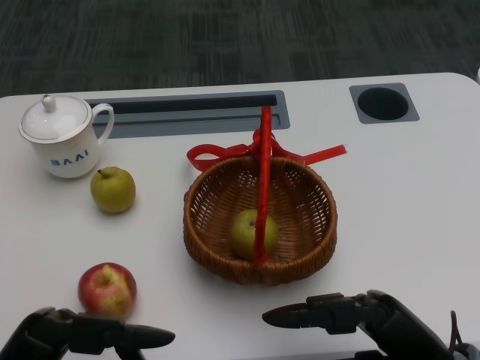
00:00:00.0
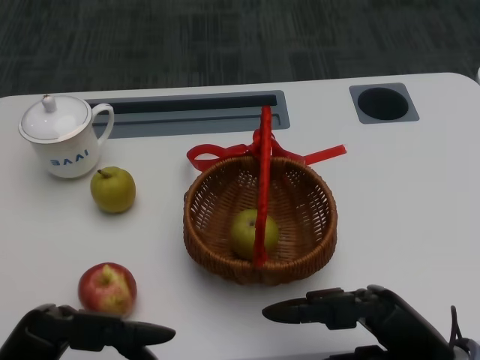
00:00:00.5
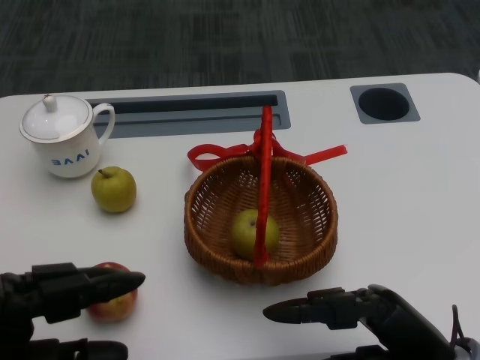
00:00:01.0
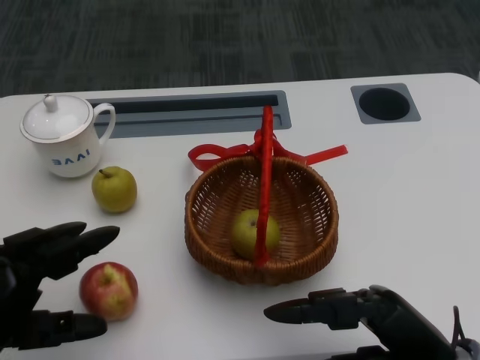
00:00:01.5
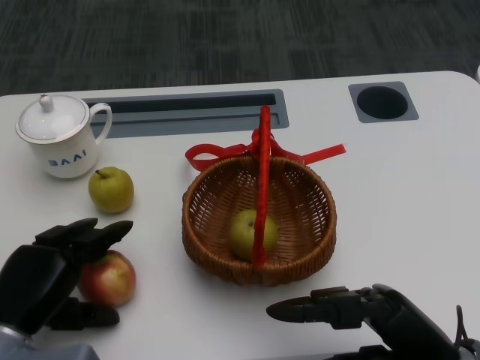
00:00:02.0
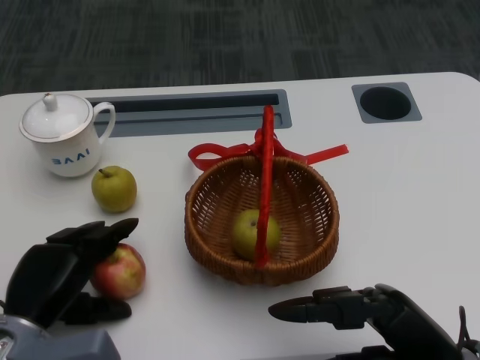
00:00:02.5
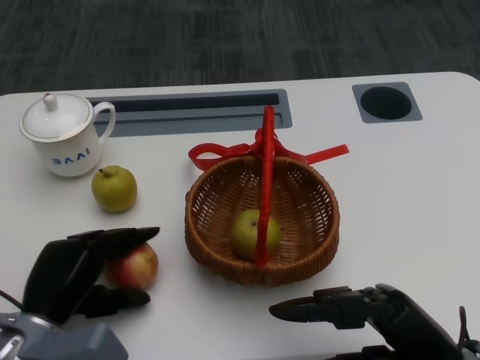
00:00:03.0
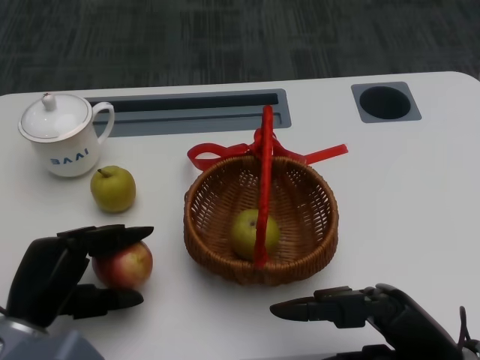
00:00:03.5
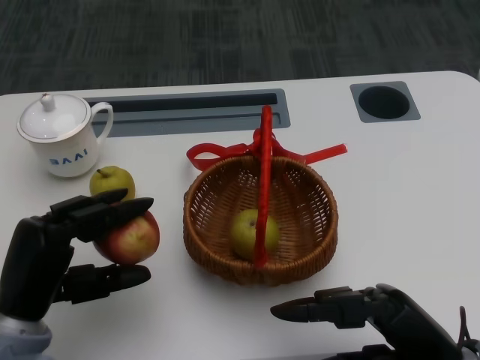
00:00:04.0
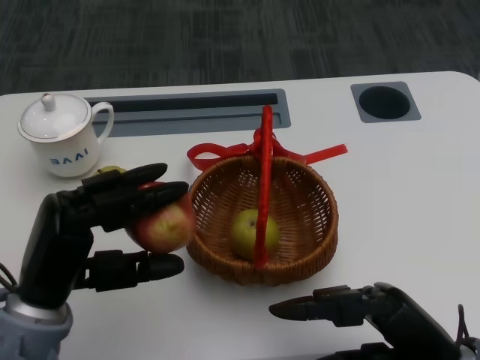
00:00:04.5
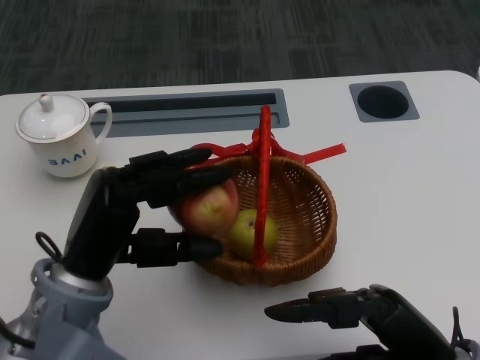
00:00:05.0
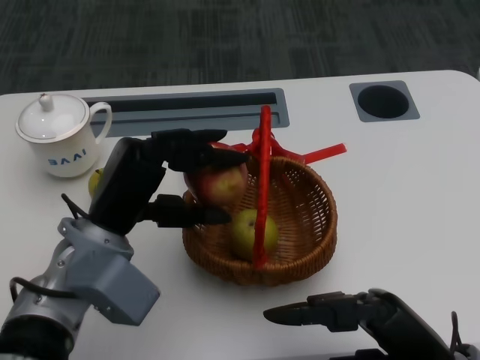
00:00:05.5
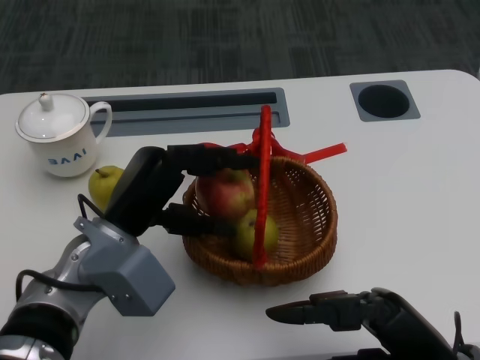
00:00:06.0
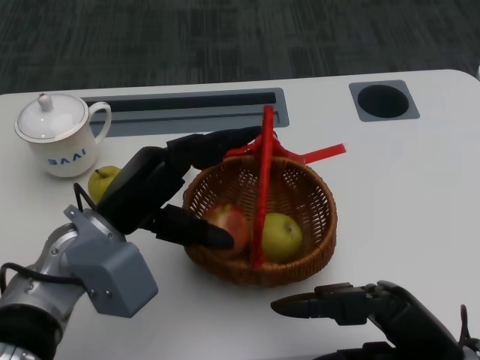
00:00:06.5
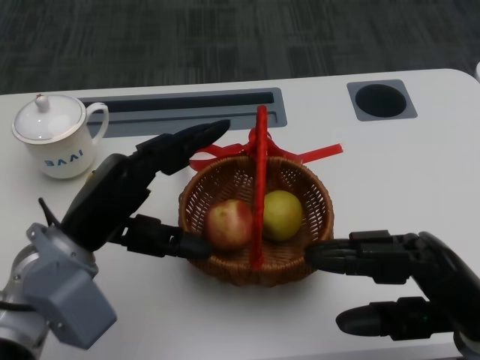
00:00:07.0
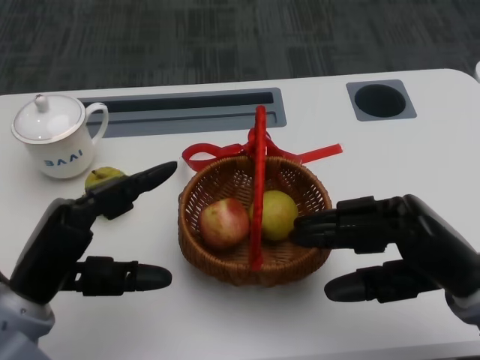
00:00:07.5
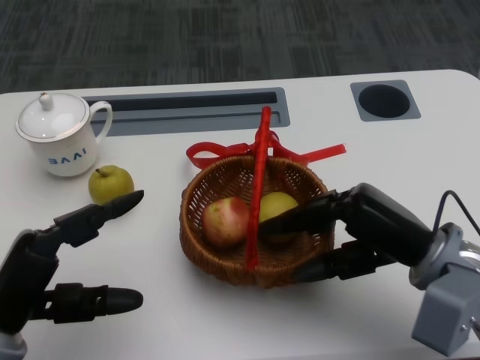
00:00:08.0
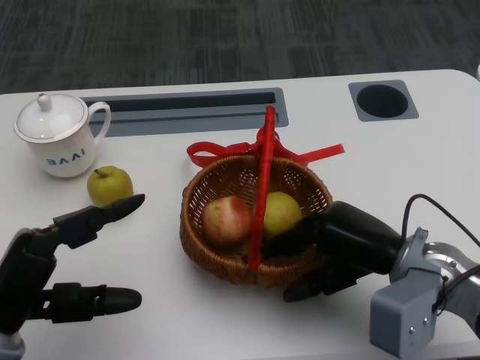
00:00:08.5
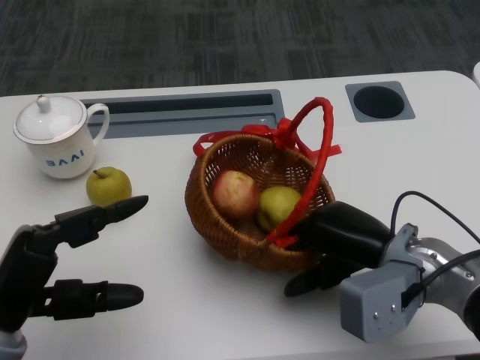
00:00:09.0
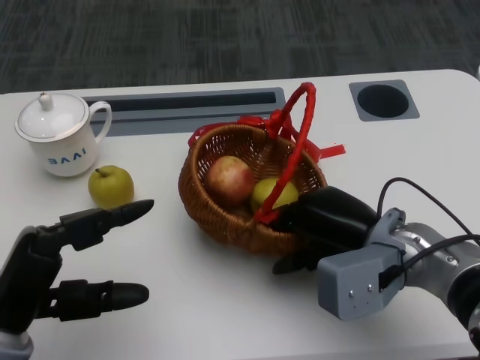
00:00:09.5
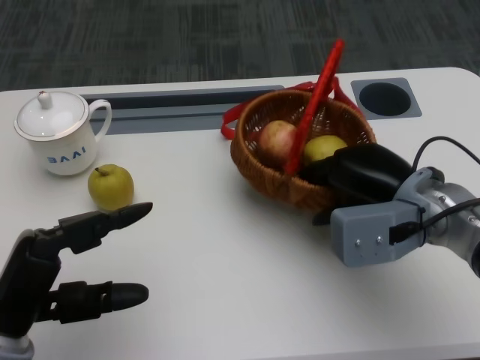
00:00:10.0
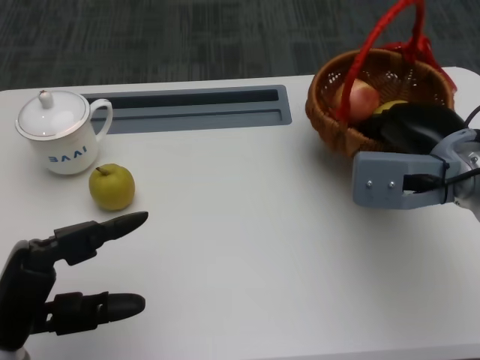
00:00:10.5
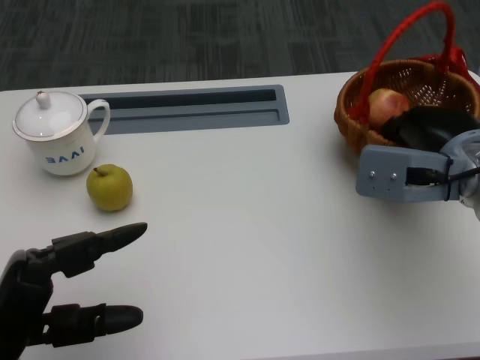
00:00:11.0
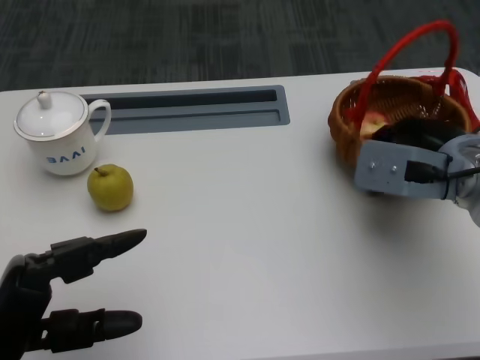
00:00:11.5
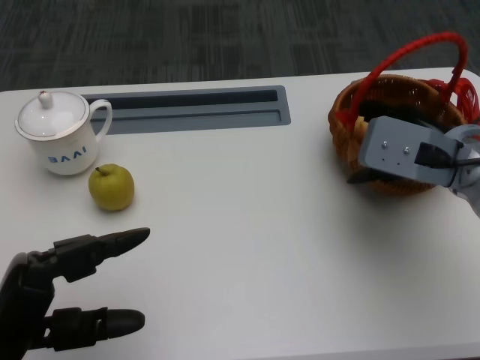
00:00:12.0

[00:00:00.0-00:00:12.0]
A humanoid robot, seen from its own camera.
Step, 00:00:01.0 to 00:00:01.5: Grasp the apple with the left gripper.
Step, 00:00:02.5 to 00:00:05.0: Place the apple into the basket with the left gripper.
Step, 00:00:05.5 to 00:00:07.5: Grasp the basket with the right gripper.
Step, 00:00:08.0 to 00:00:09.5: Move the basket to the front of the table with the right gripper.
00:00:04.0 to 00:00:06.0: The left hand is displaced to the right and forward by about 10 cm.
00:00:06.0 to 00:00:08.0: The left hand shifts about 15 cm to the left and backward, while the right hand is displaced forward by some 10 cm.
00:00:08.0 to 00:00:10.0: The right hand goes about 5 cm forward.
00:00:10.0 to 00:00:12.0: The right hand shifts by approximately 5 cm.

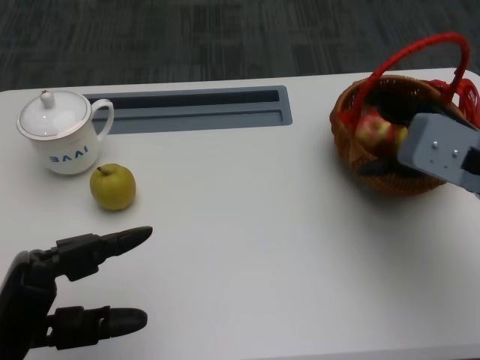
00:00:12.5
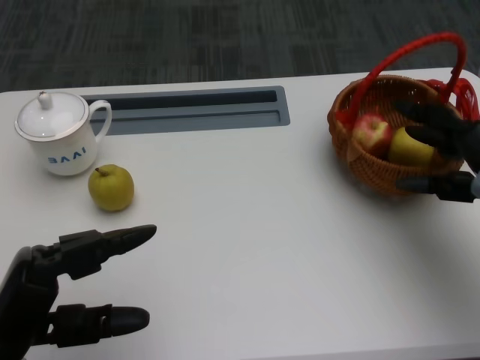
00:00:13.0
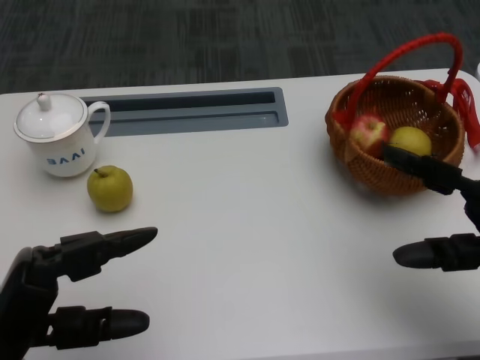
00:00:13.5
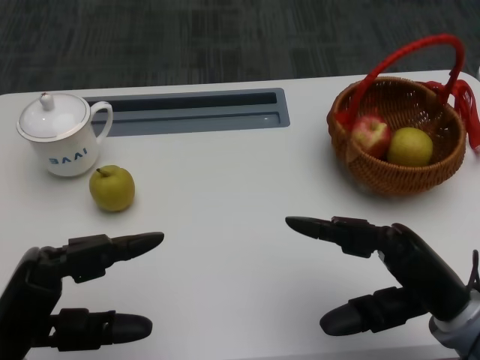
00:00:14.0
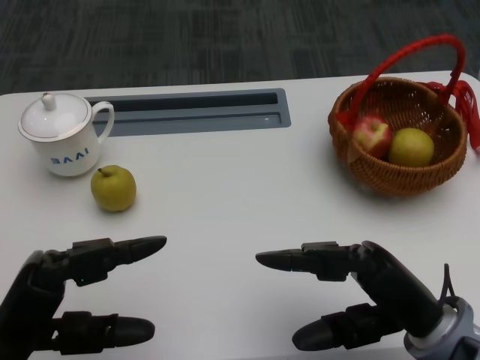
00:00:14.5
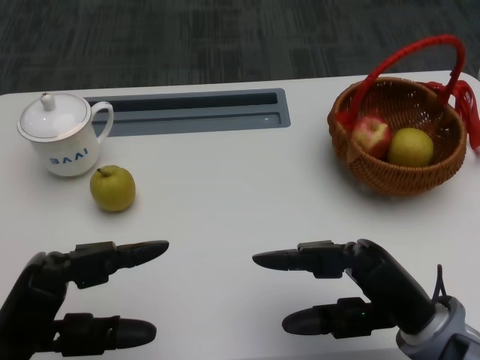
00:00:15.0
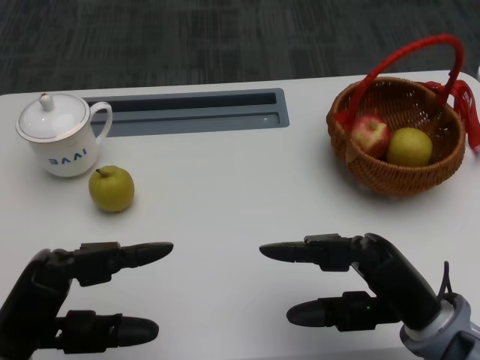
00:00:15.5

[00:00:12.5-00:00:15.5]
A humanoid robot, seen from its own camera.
00:00:12.5 to 00:00:14.0: The right hand is displaced backward and downward by approximately 15 cm.
00:00:14.0 to 00:00:15.5: The hands make only small movements.

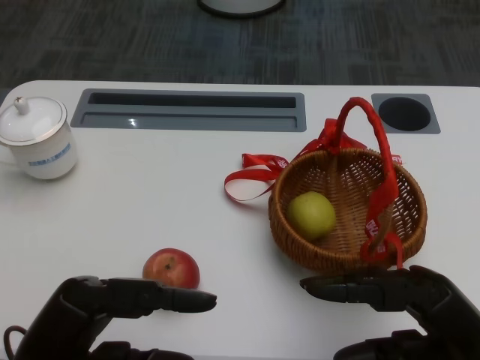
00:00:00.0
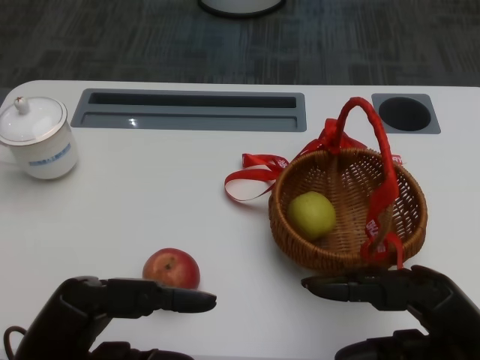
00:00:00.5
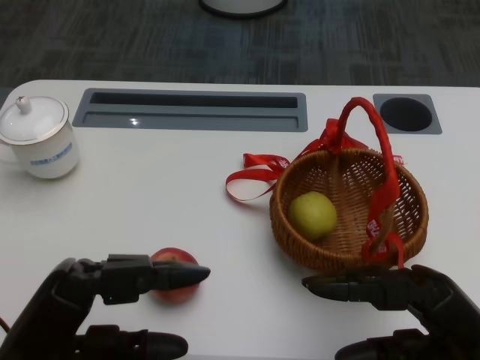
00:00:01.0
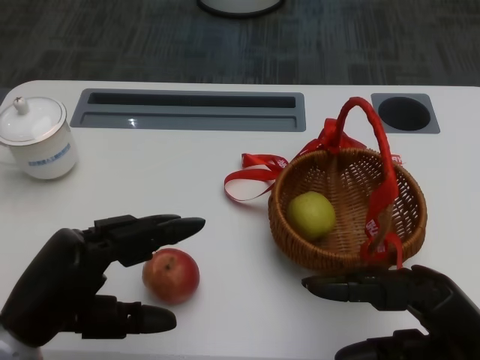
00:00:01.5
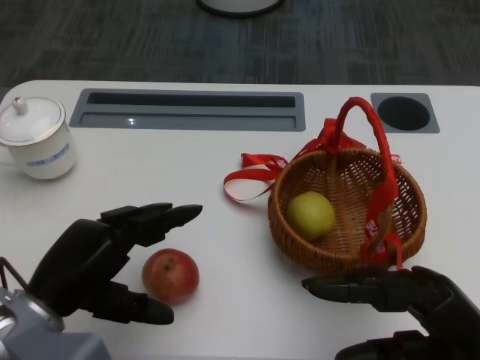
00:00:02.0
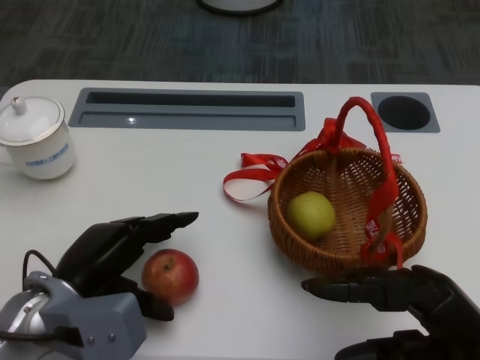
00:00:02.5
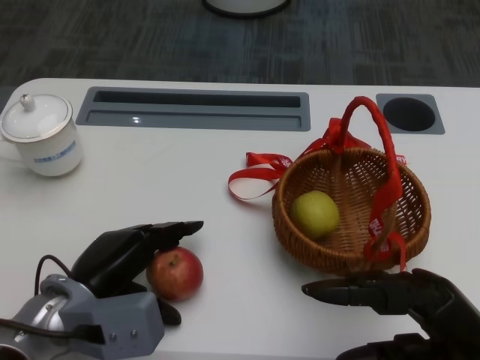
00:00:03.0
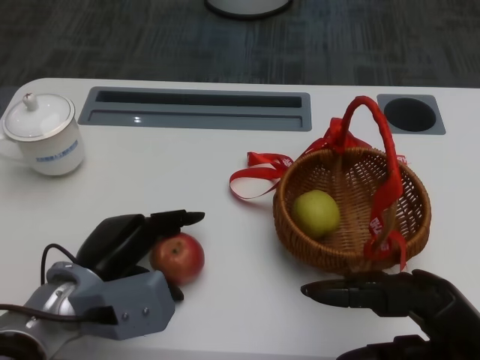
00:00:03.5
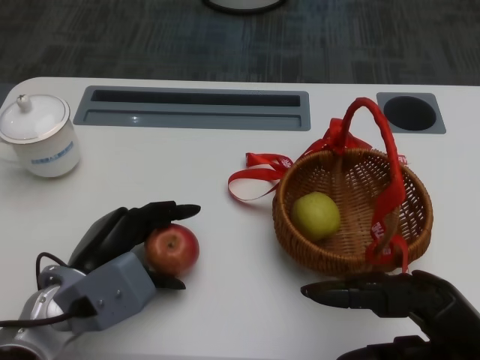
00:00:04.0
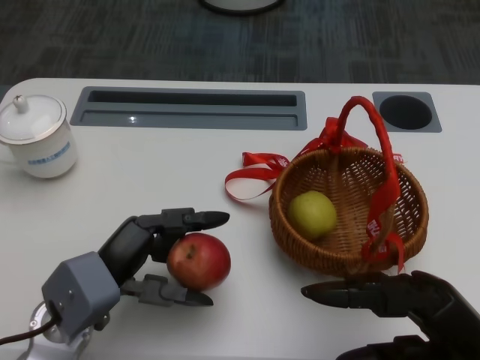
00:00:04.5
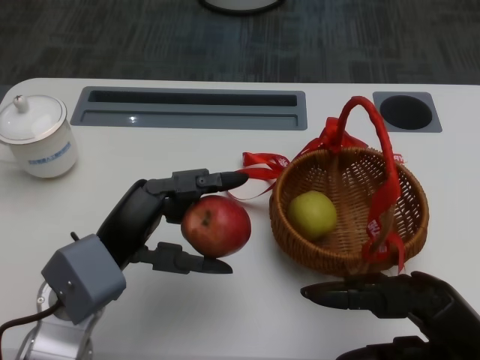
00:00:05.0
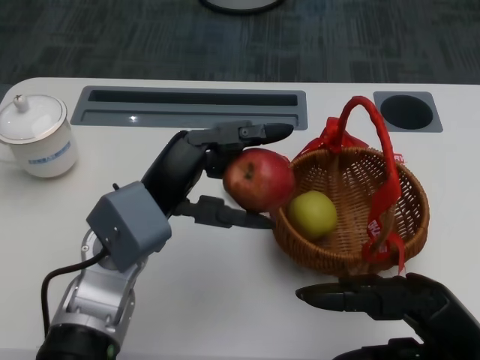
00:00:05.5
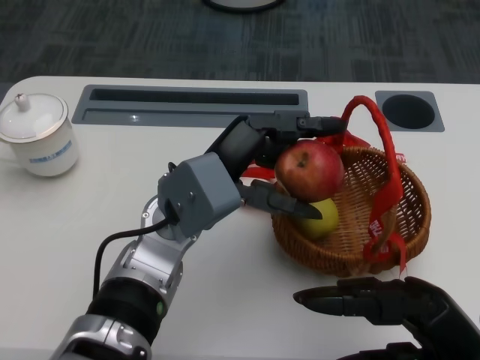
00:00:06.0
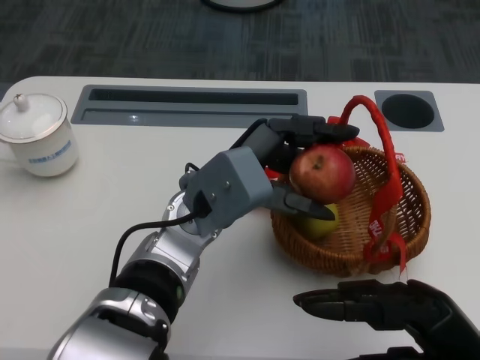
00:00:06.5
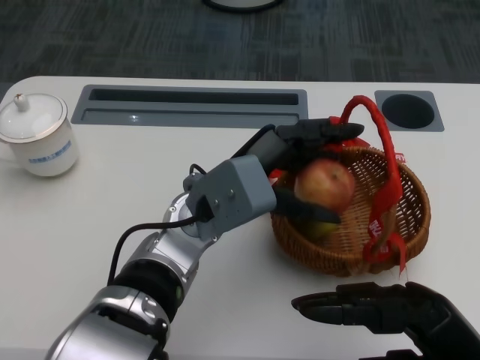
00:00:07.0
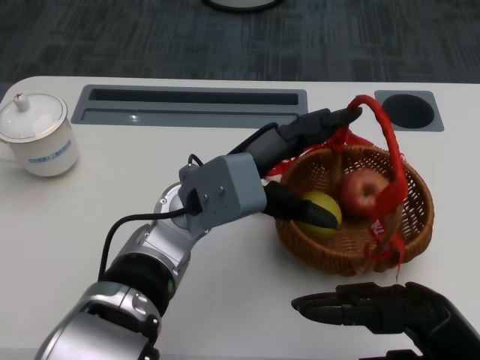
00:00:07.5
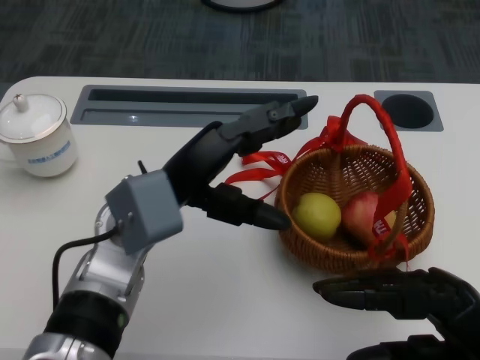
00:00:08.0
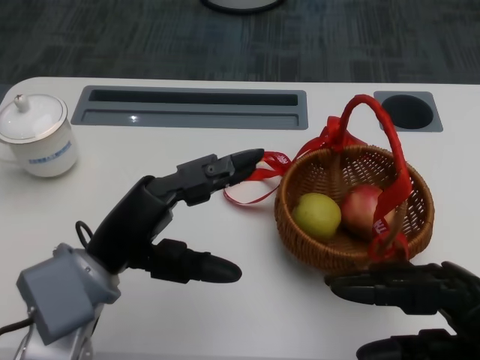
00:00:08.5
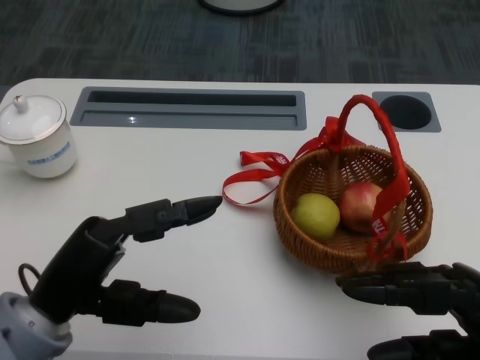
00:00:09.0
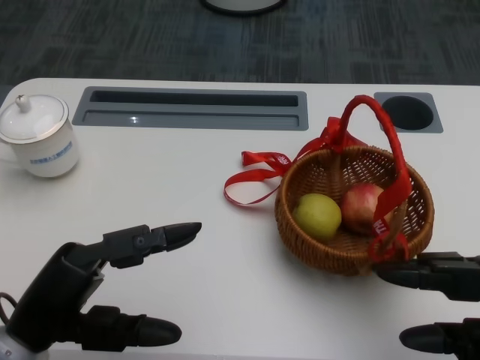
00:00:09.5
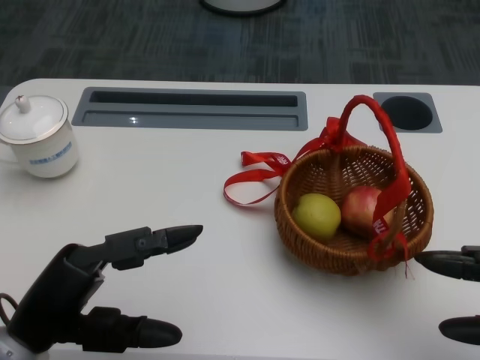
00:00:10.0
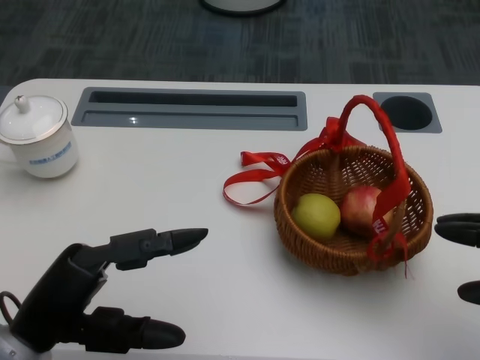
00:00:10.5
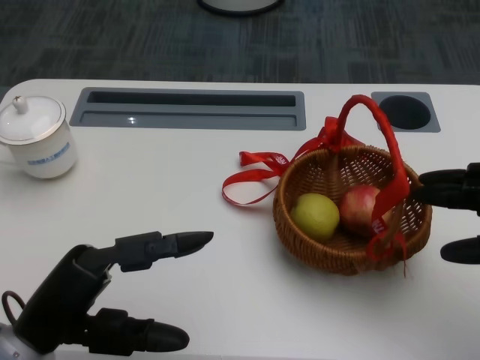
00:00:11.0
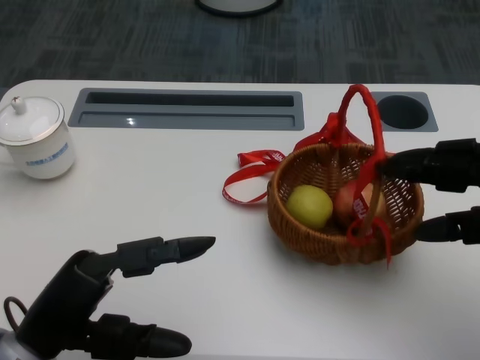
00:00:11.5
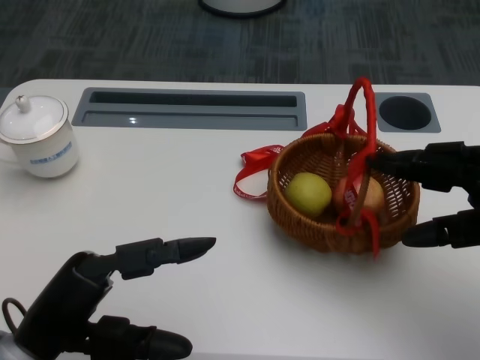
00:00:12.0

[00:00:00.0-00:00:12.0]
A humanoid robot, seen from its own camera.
Step, 00:00:01.0 to 00:00:03.0: Grasp the apple with the left gripper.
Step, 00:00:03.5 to 00:00:05.5: Place the apple into the basket with the left gripper.
00:00:02.0 to 00:00:04.0: The left hand goes approximately 5 cm forward.
00:00:04.0 to 00:00:06.0: The left hand is displaced to the right and upward by about 15 cm.
00:00:08.0 to 00:00:10.0: The left hand moves backward and to the left, about 15 cm. The right hand shifts roughly 5 cm to the right.
00:00:10.0 to 00:00:12.0: The right hand is displaced forward by roughly 10 cm.
